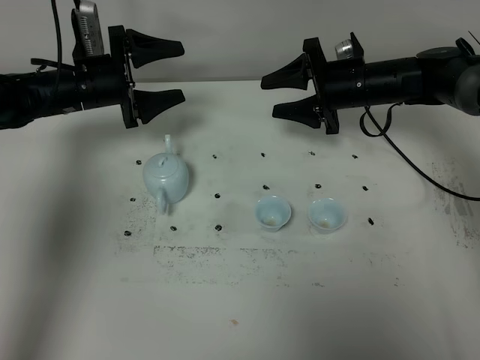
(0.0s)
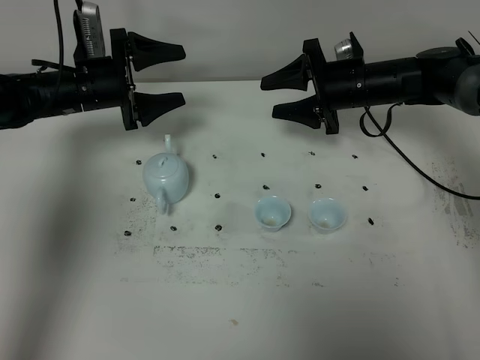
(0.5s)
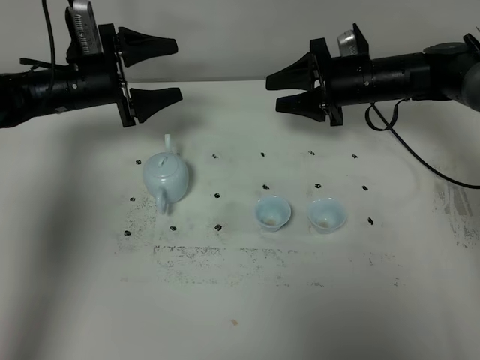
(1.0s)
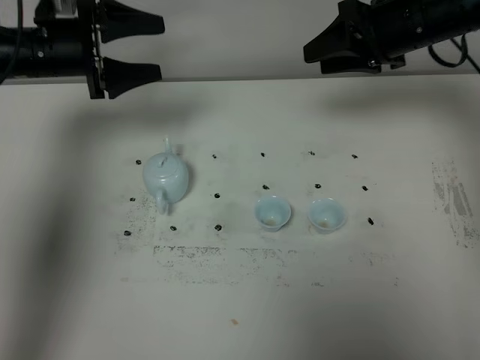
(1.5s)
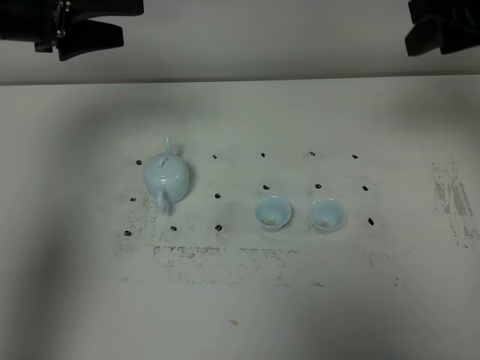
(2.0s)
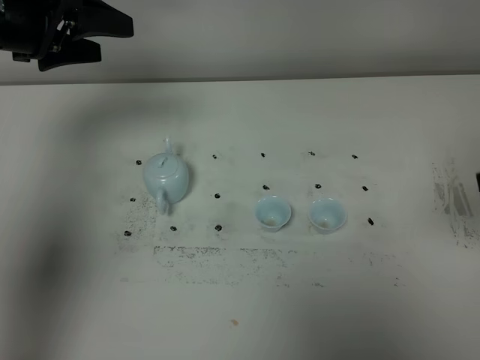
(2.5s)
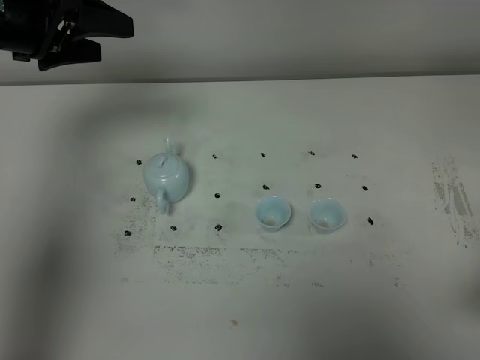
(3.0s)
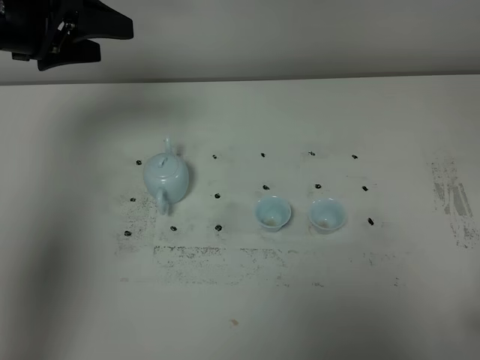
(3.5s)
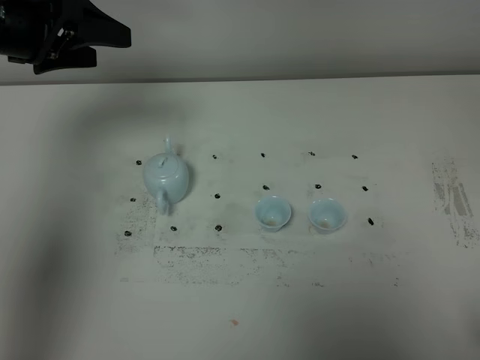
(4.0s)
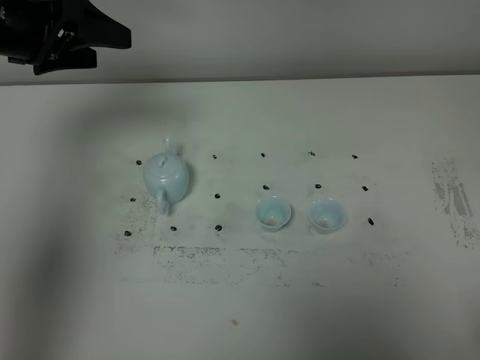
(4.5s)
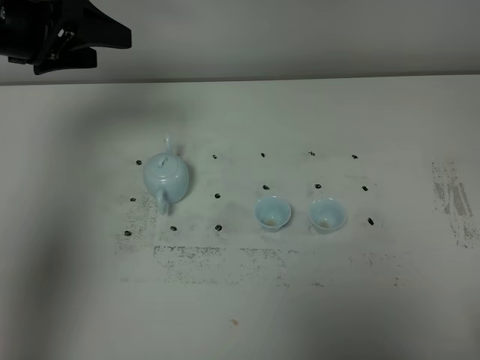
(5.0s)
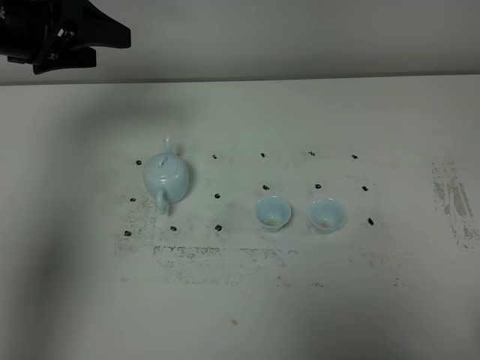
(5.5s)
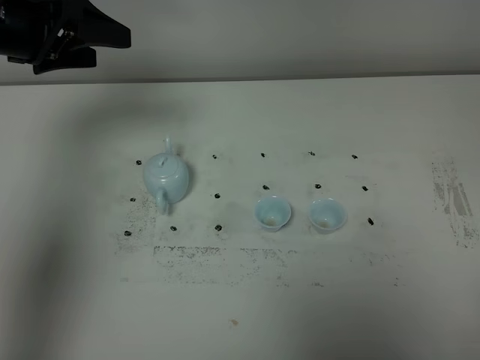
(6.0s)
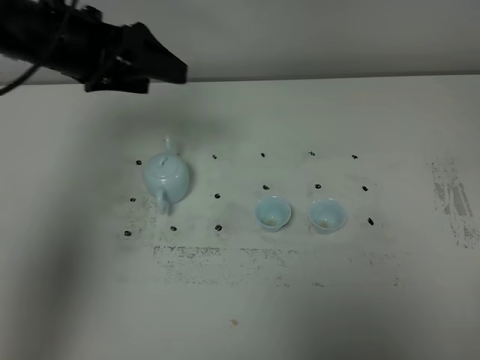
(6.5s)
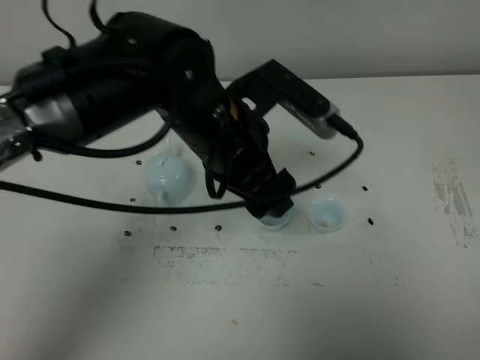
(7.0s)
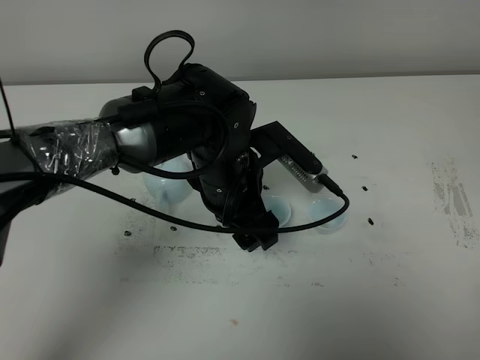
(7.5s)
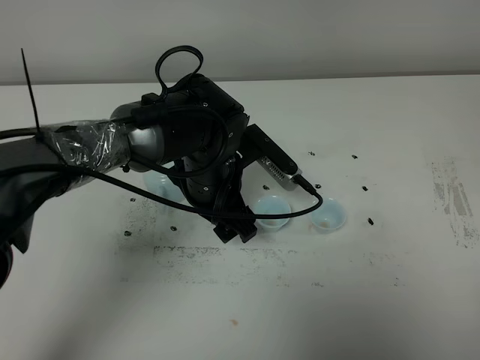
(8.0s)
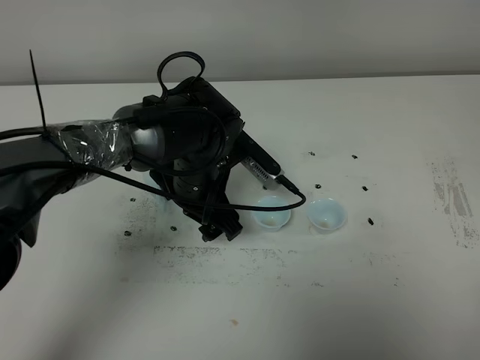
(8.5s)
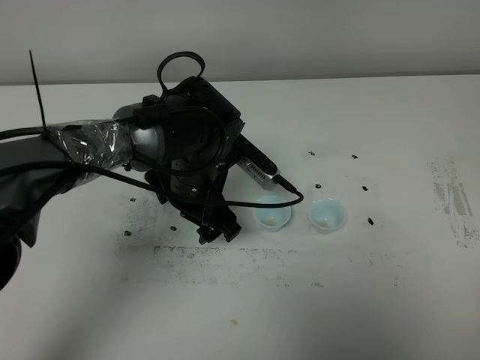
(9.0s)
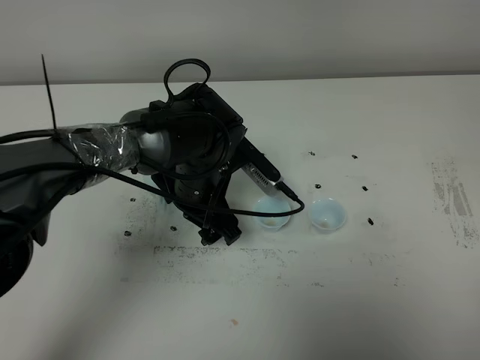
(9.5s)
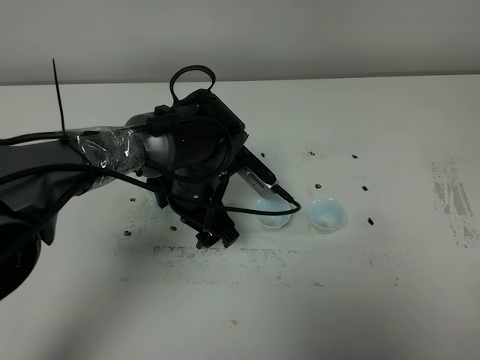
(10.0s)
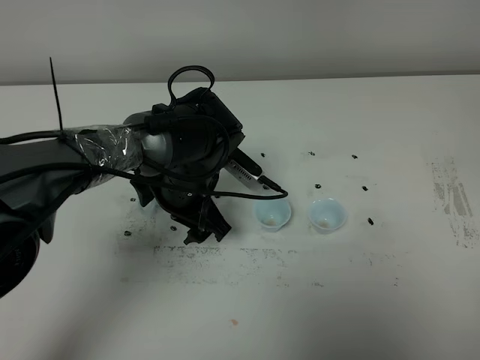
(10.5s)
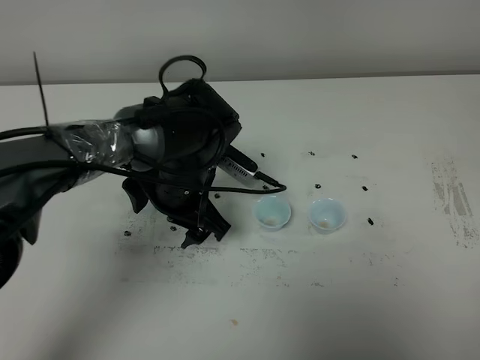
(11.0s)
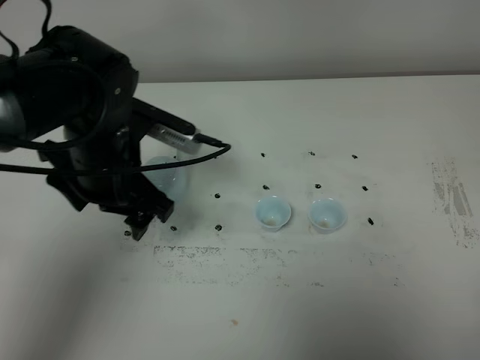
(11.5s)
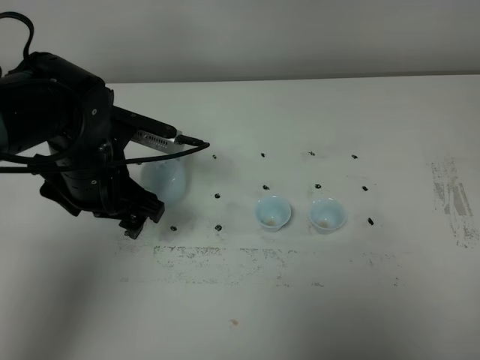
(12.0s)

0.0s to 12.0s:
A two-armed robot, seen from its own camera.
Task of the whole recording: grasp the blue porcelain teapot and pour the tea into the two blue porcelain teacups one by one, put the blue porcelain teapot back in its original place.
0.0s to 2.0s: The grippers both shift upward and backward by approximately 25 cm.
2.0s to 4.0s: The right gripper moves backward, about 30 cm.
6.0s to 8.0s: The left gripper moves to the right and downward, about 25 cm.
8.0s to 10.0s: The grippers move only a little.
10.0s to 12.0s: The left gripper heads to the left and upward, covering approximately 15 cm.

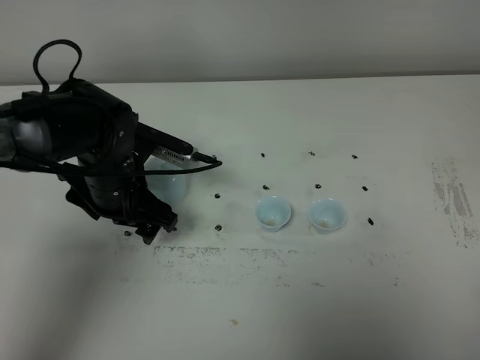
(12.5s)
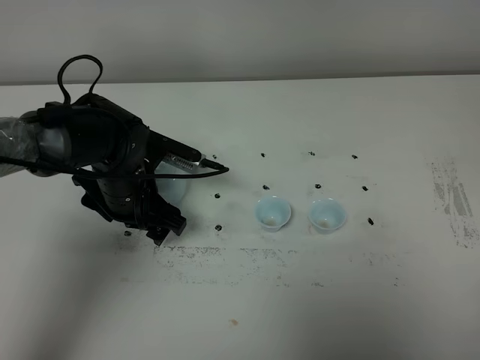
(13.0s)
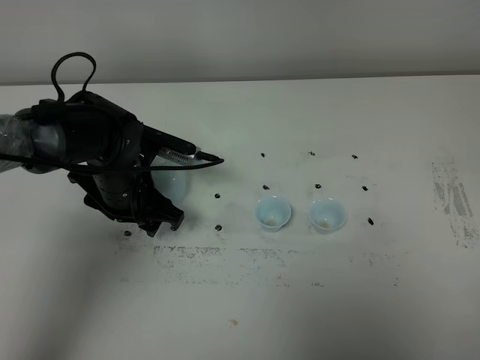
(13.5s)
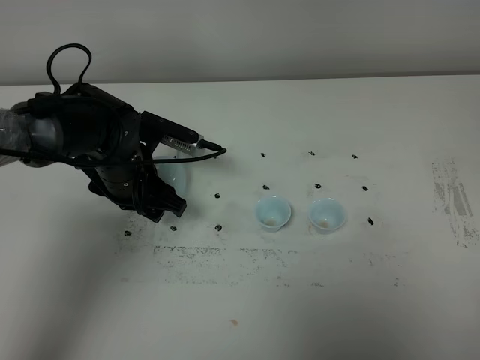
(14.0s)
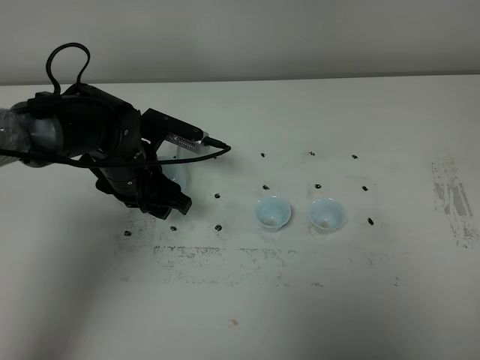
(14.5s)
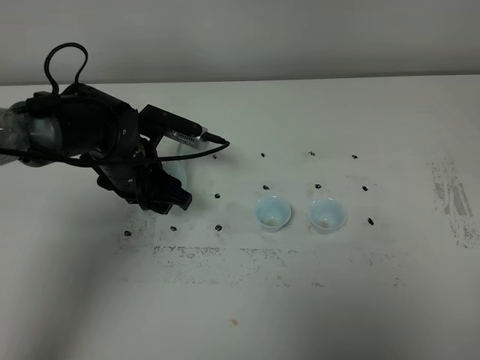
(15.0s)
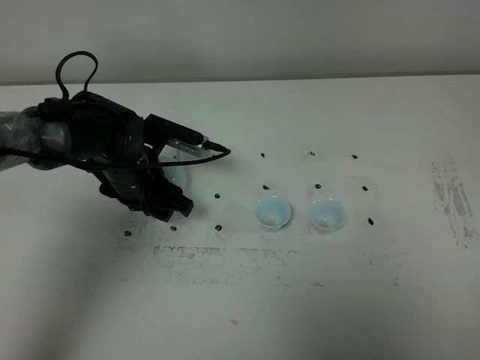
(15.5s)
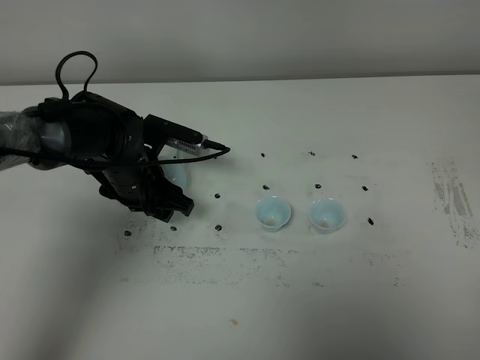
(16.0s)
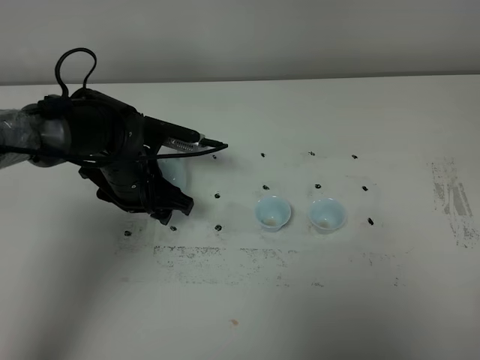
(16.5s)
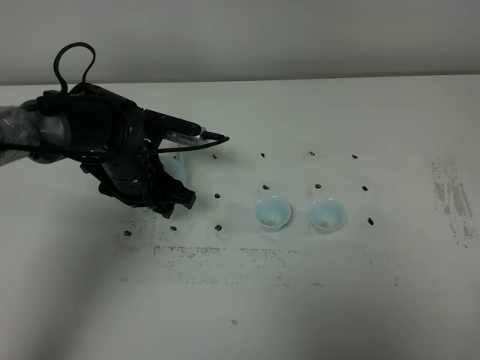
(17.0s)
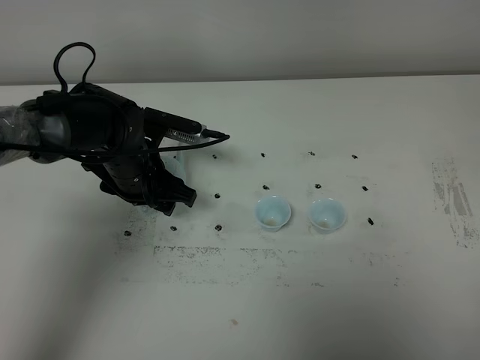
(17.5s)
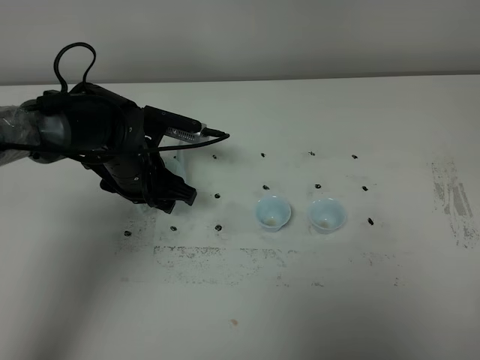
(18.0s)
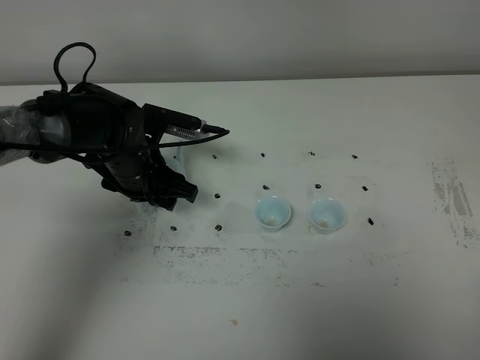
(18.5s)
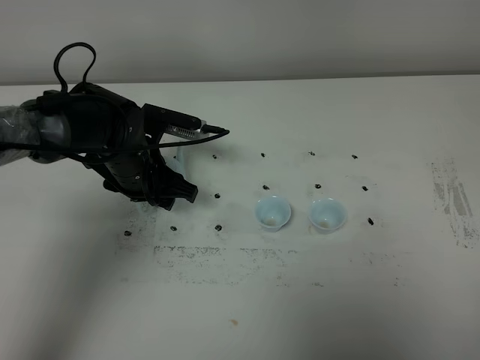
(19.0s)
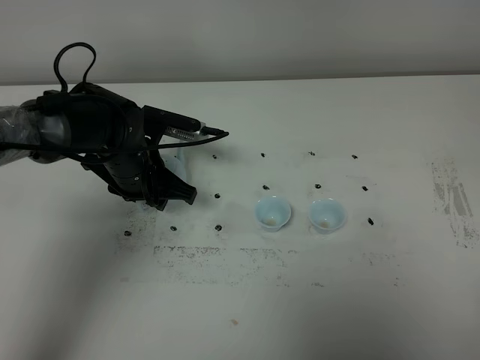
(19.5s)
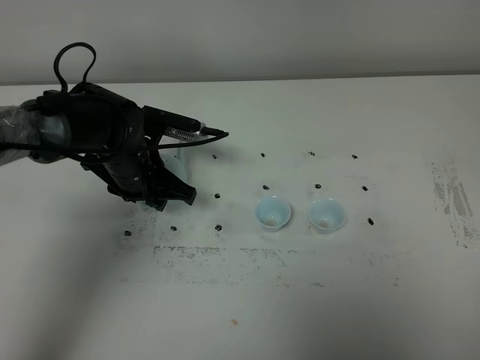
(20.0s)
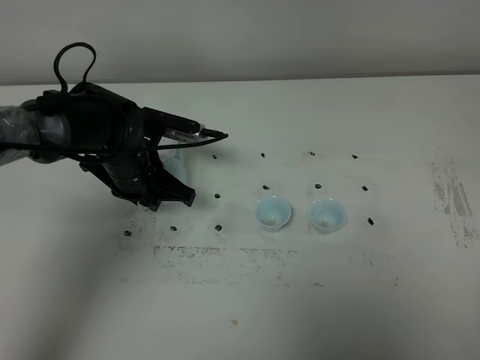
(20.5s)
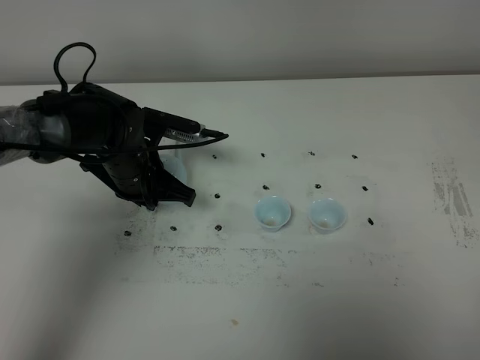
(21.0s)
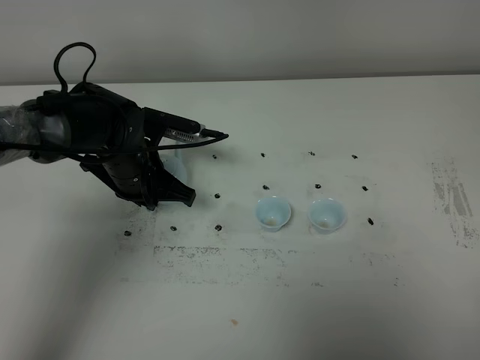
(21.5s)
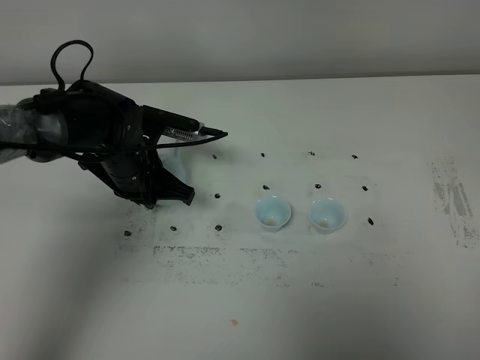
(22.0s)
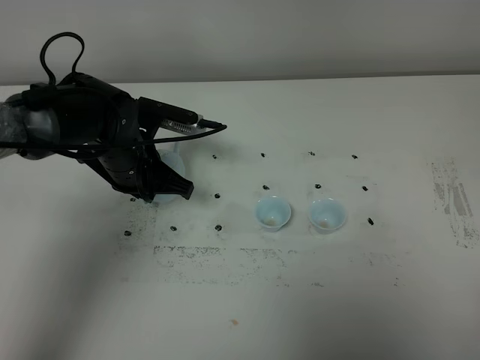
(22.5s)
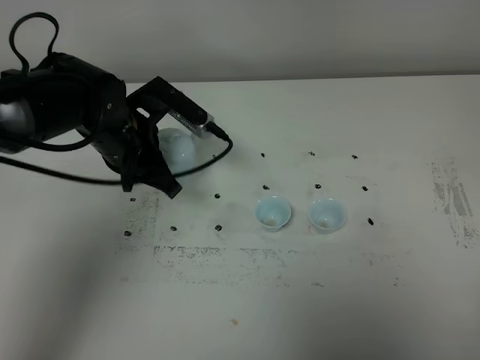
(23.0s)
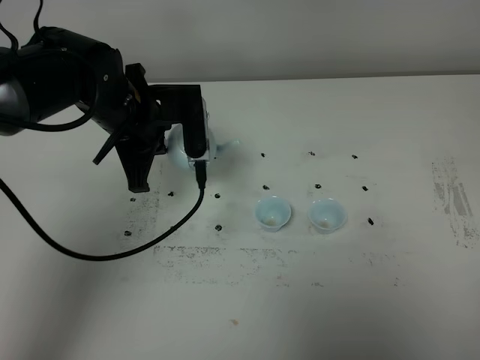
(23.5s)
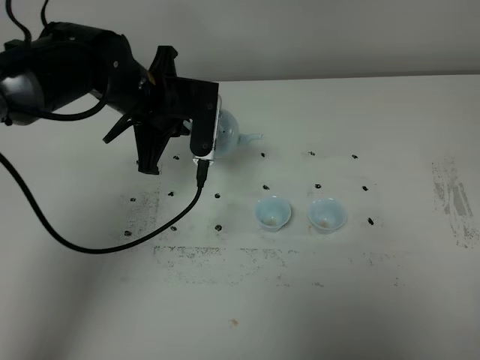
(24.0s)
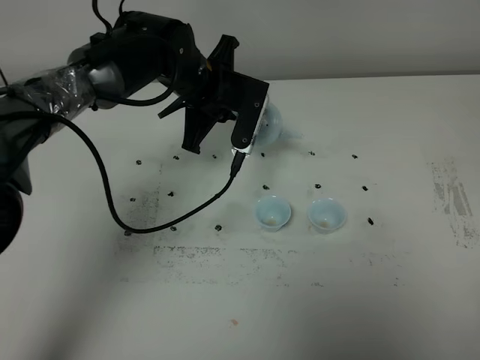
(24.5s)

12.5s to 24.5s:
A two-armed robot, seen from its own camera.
Task of the whole recording: grasp the blue porcelain teapot and pour the tea into the two blue porcelain teacups one by one, put the blue porcelain teapot back in its original place.
12.5s to 16.5s: The grippers make only small movements.
16.5s to 18.5s: The two grippers keep their place.
18.5s to 20.5s: The left gripper closes.
20.5s to 22.5s: The grippers make only small movements.
22.5s to 24.5s: The left gripper heads to the right, forward and upward, covering some 15 cm.

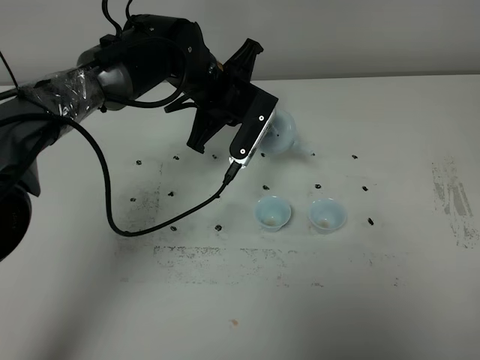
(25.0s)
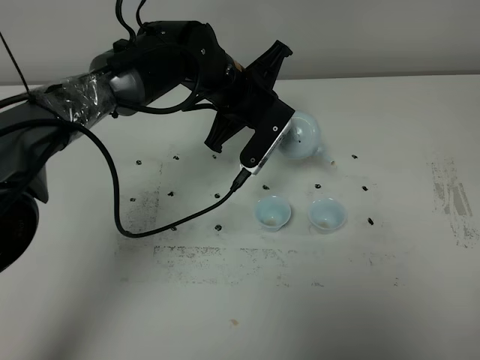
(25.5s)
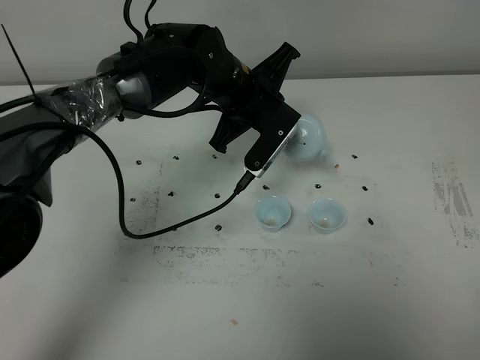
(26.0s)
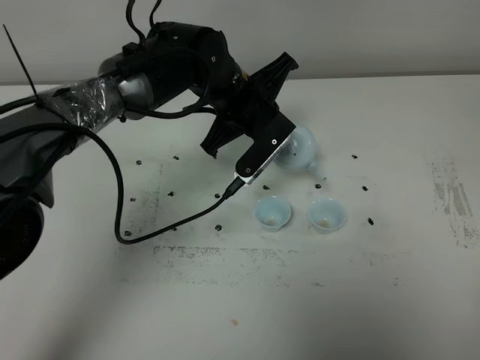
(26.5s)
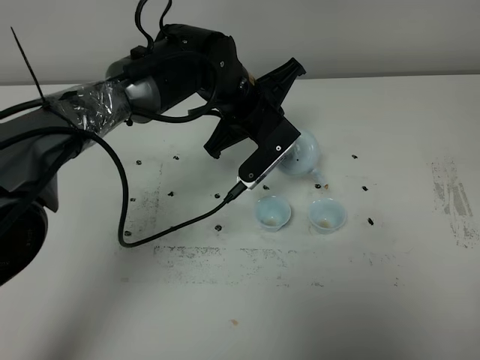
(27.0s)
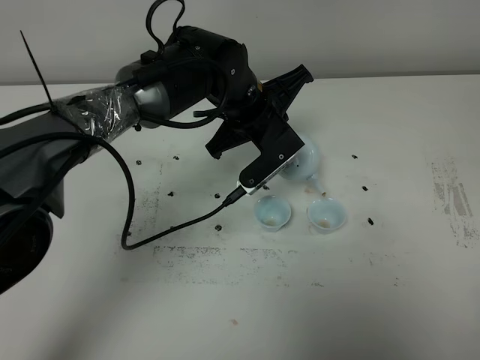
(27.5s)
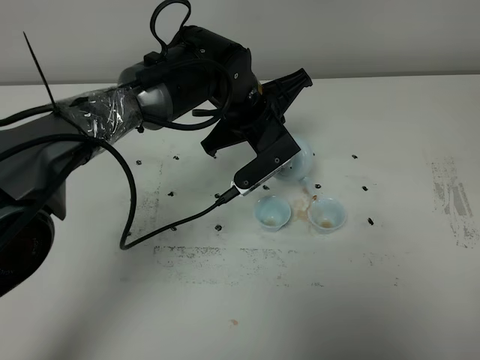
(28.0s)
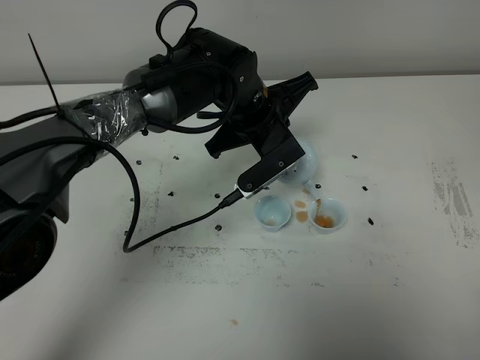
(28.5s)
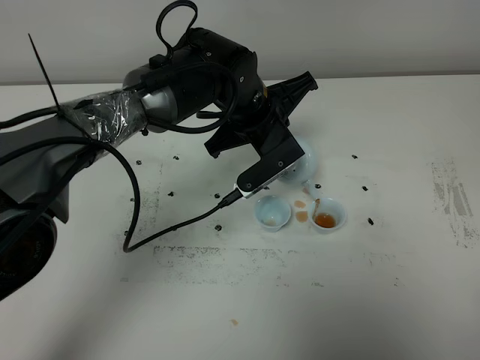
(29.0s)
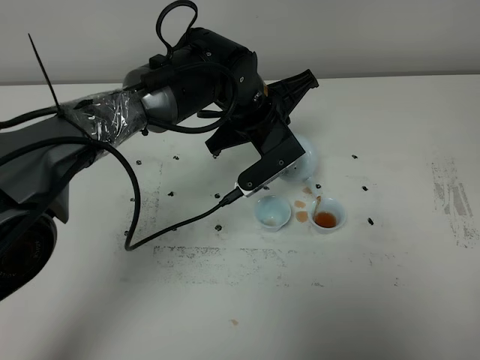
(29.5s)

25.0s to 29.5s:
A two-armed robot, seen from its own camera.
Task of the whole recording: grasp the blue porcelain teapot and pour the tea into the two blue porcelain teacups one by one, put the blue porcelain teapot back in its original place.
25.0s to 27.0s: The grippers stay close to where they were, moving slightly.
27.0s to 29.5s: The grippers stay close to where they were, moving slightly.
